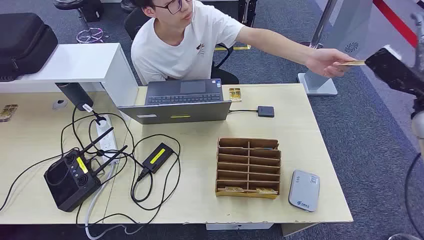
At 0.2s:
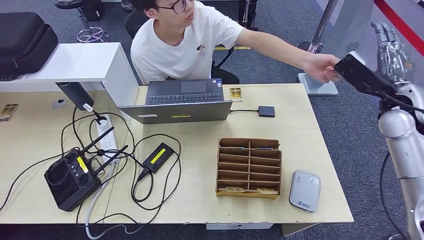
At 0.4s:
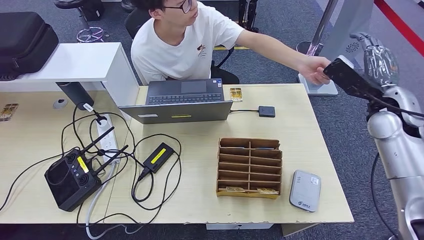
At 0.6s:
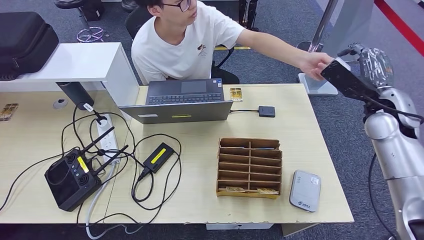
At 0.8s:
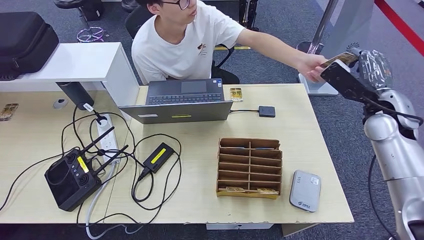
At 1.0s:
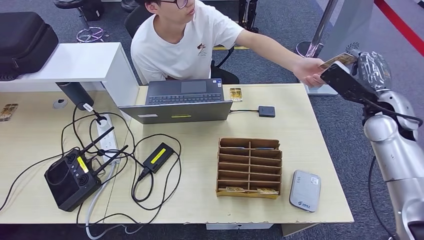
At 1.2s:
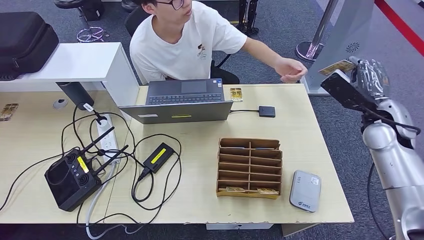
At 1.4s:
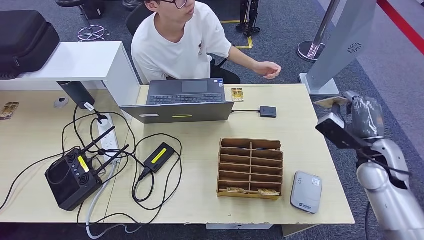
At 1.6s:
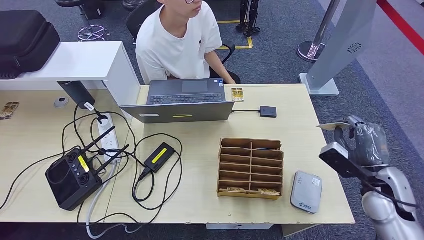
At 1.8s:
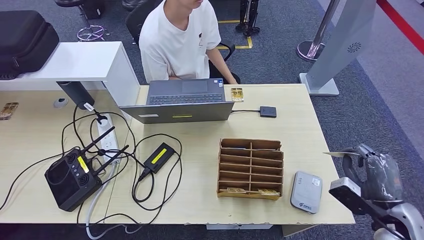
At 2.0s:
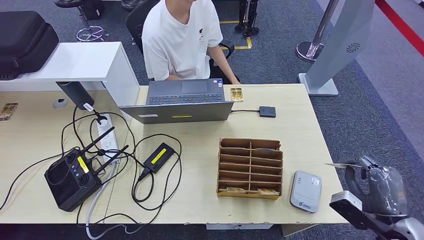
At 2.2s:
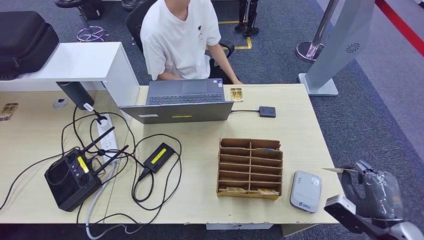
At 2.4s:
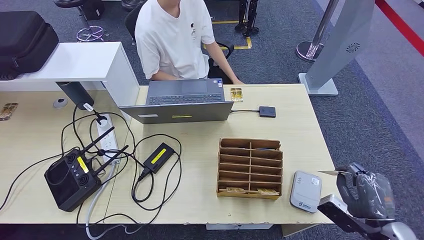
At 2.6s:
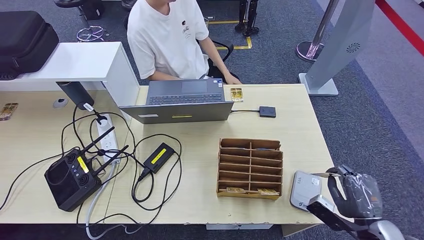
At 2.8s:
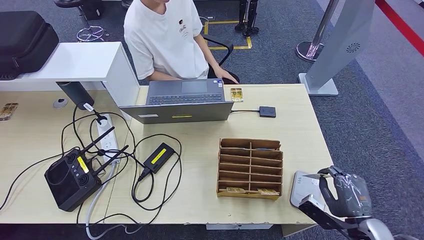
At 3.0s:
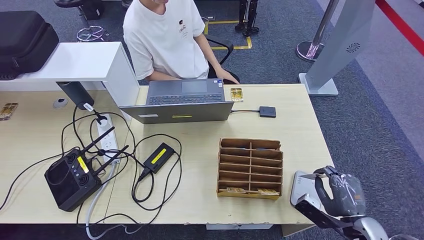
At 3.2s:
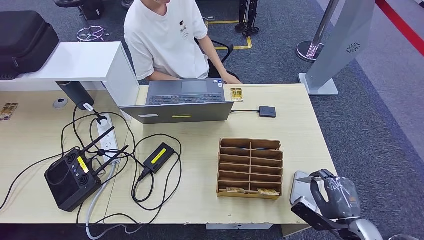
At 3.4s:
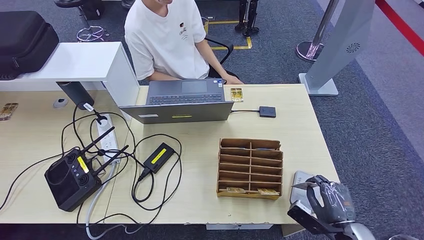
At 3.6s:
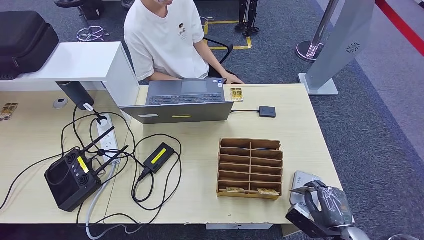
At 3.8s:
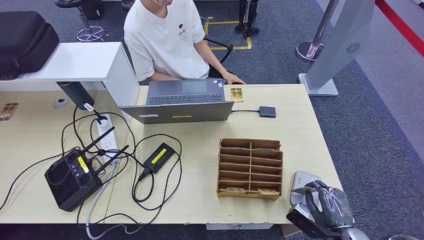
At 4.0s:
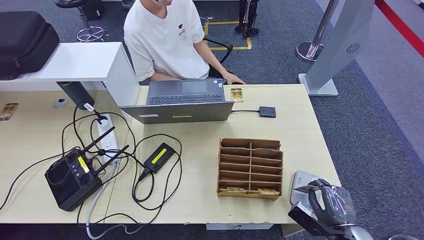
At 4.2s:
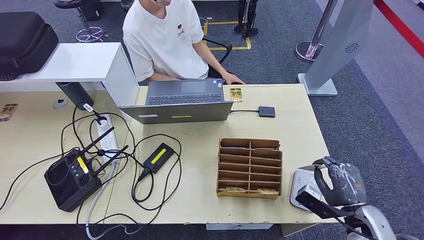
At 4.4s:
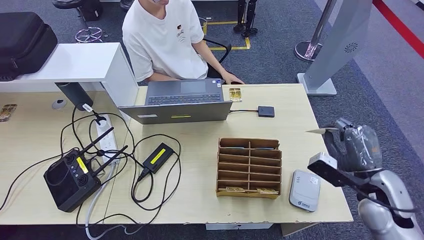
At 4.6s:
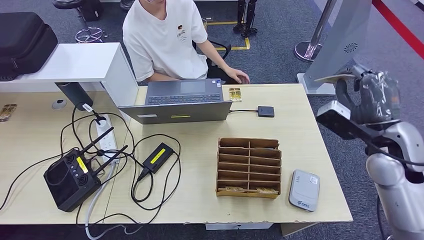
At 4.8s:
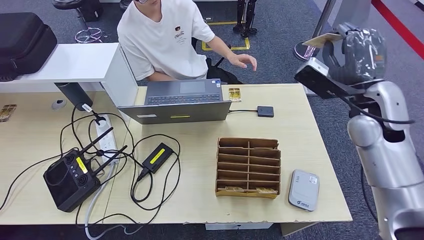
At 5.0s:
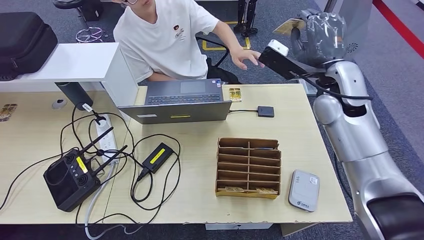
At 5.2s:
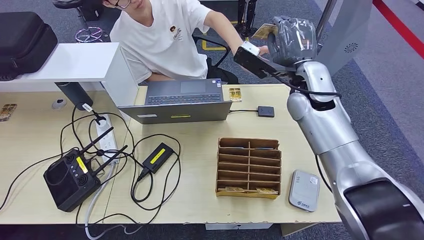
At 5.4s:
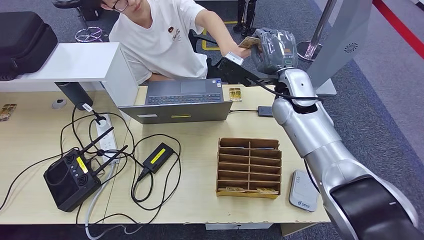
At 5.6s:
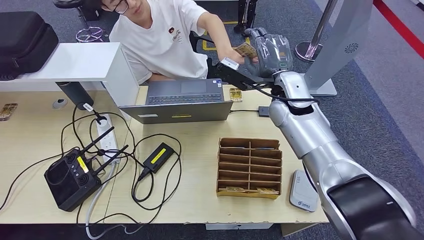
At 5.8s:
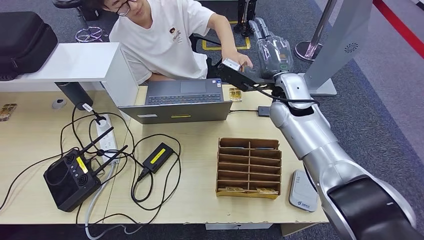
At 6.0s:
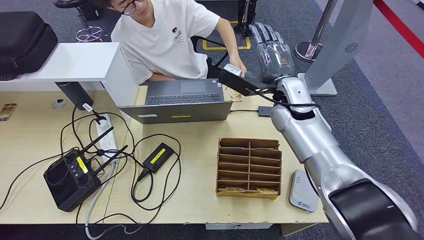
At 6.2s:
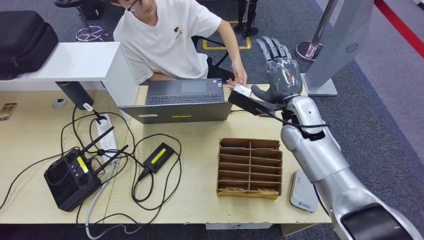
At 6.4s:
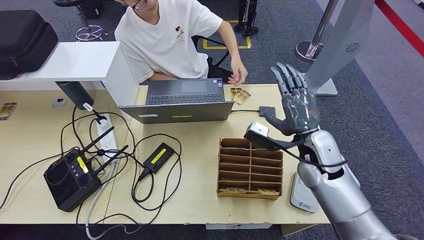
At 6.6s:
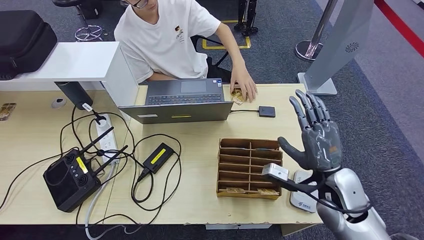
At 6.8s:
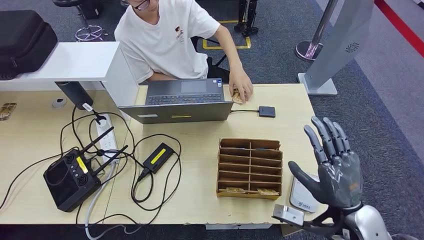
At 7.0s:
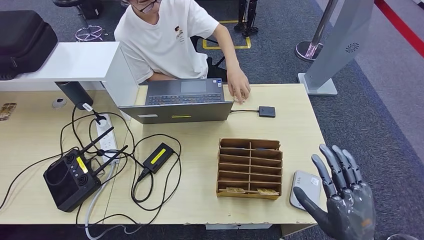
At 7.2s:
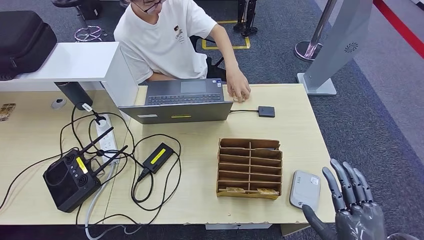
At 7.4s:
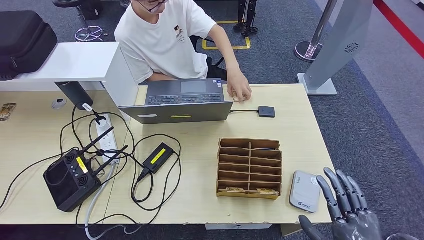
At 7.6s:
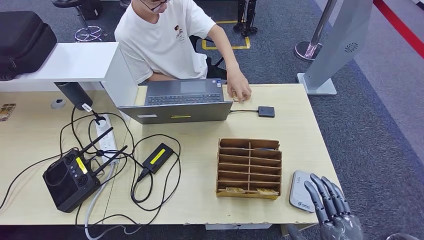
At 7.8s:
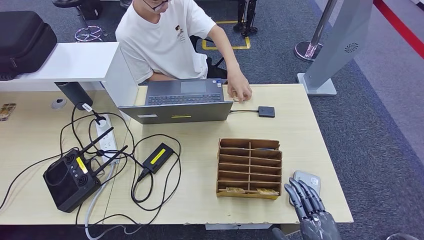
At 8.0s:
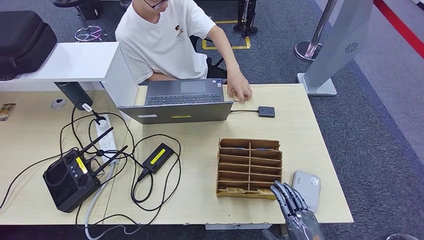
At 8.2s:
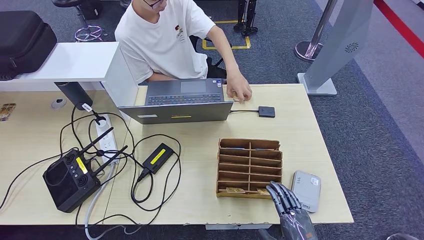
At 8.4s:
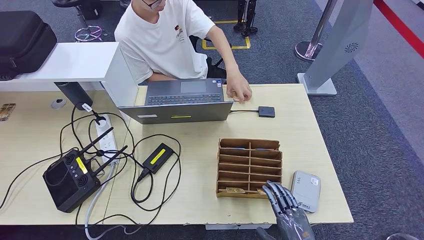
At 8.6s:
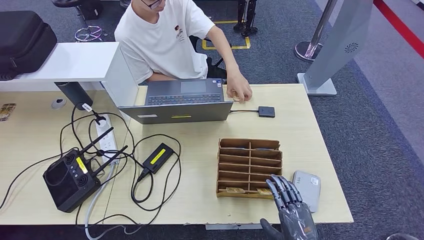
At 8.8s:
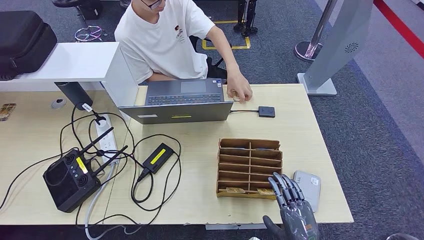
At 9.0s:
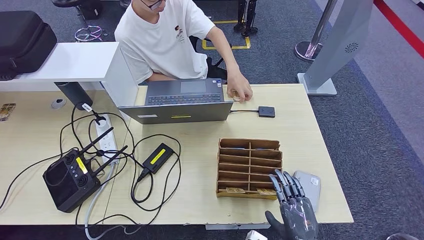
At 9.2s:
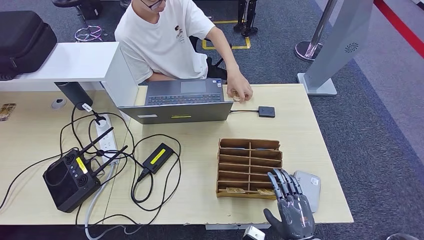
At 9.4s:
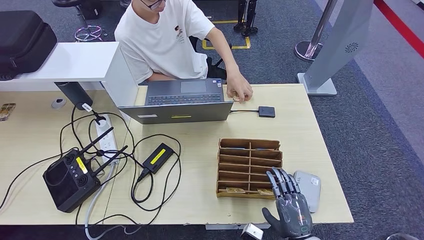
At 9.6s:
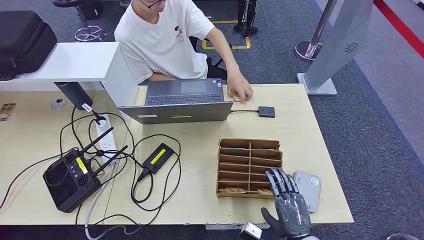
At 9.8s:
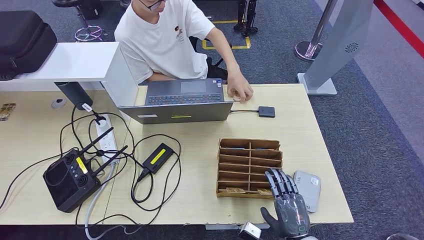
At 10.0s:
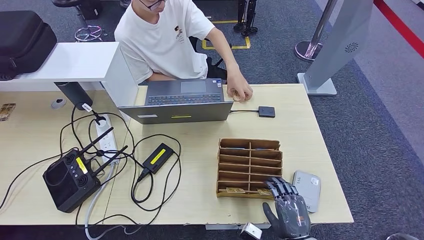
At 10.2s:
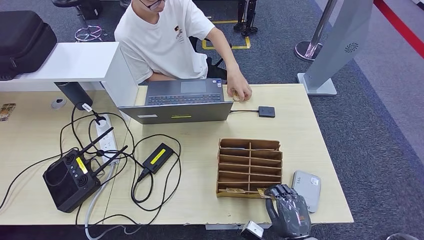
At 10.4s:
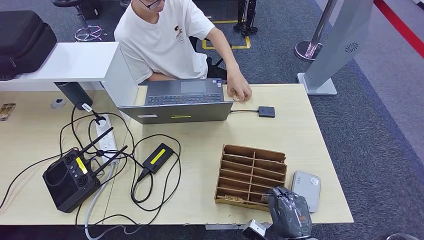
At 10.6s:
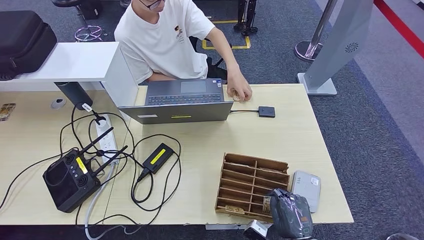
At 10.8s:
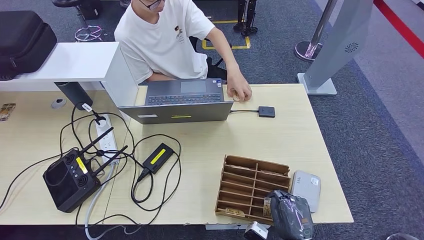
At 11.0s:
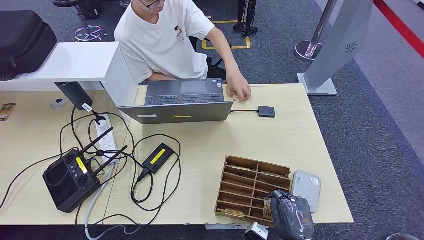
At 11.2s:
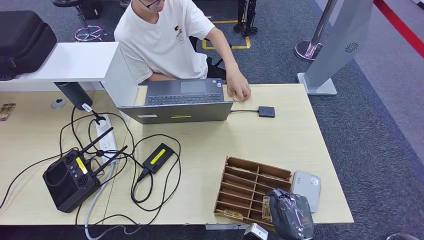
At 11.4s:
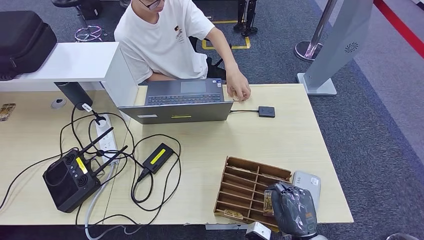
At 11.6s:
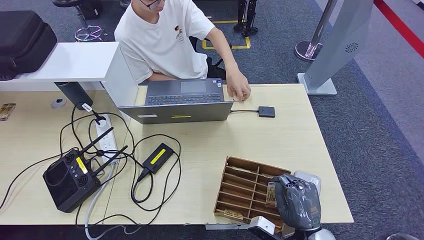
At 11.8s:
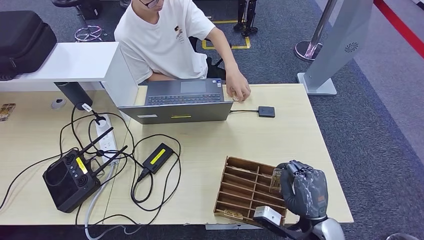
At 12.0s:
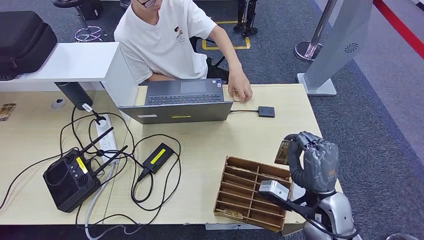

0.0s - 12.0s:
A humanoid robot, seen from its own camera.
Step, 0.0s - 1.2s: Take the ID card from the person's hand.
Step, 1.4s - 3.2s: Place the ID card on the card reader.
Step, 3.4s - 10.4s: Hand the ID card to the person.
1.6s - 3.0s: The right hand shifts about 15 cm backward and downward.
3.0s - 4.4s: The right hand is displaced upward and forward by roughly 15 cm.
4.4s - 6.0s: The right hand travels to the left, forward and upward by some 30 cm.
6.0s - 7.6s: The right hand moves backward, about 40 cm.
7.6s - 9.0s: The right hand shifts roughly 10 cm downward and forward.
9.0s - 10.4s: The hands stay close to where they were, moving slightly.
10.4s - 12.0s: The right hand travels upward and forward by some 15 cm.

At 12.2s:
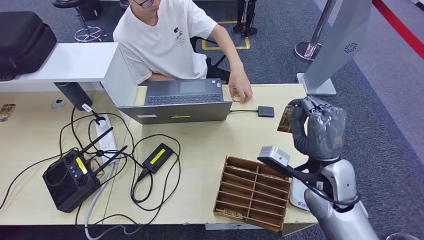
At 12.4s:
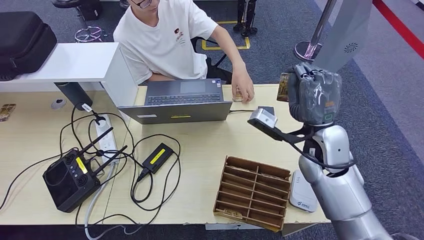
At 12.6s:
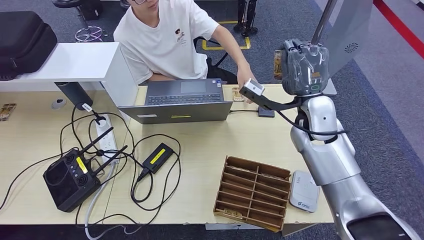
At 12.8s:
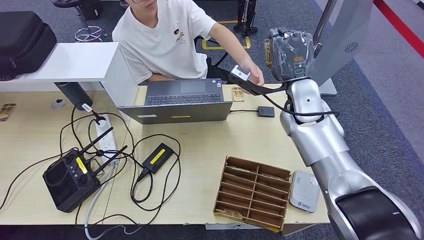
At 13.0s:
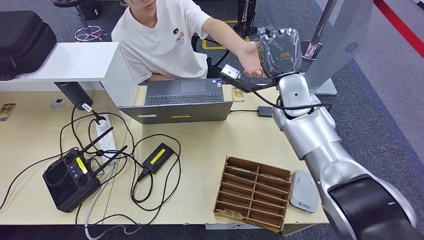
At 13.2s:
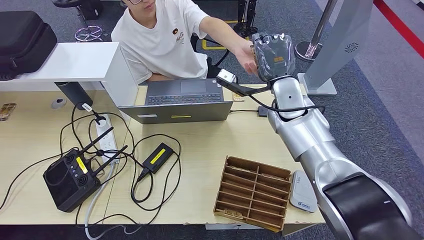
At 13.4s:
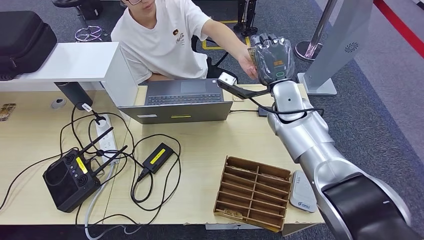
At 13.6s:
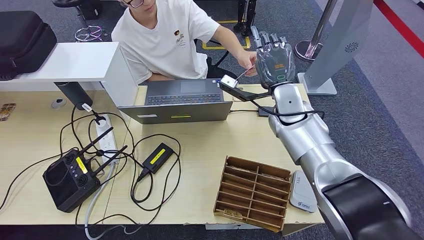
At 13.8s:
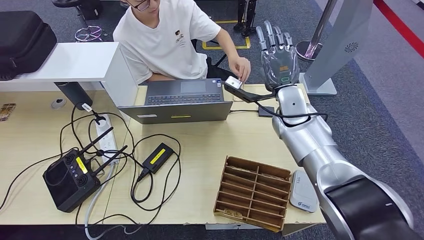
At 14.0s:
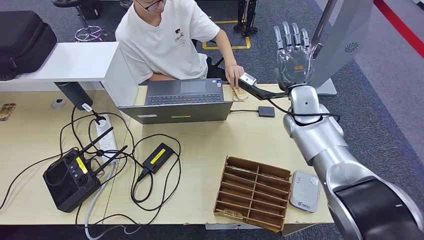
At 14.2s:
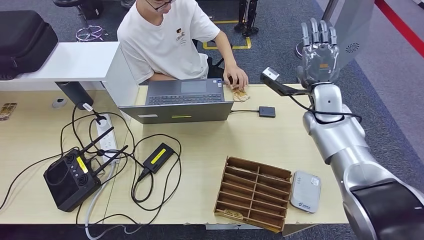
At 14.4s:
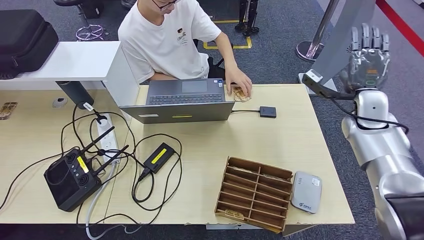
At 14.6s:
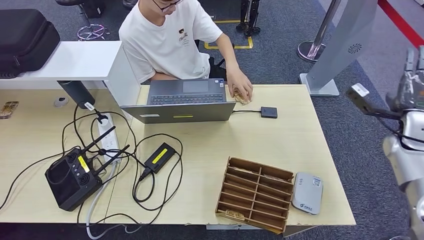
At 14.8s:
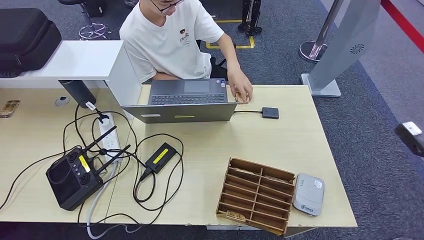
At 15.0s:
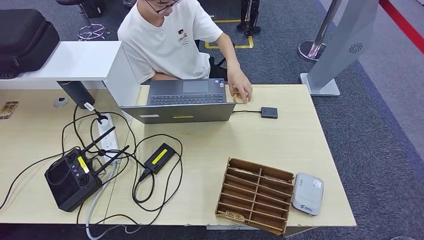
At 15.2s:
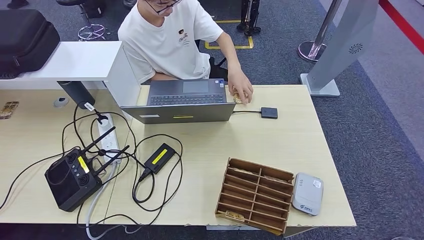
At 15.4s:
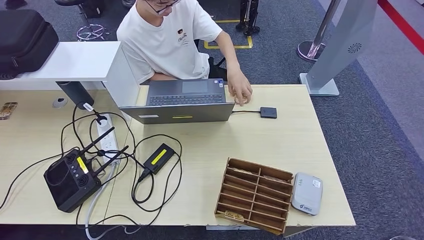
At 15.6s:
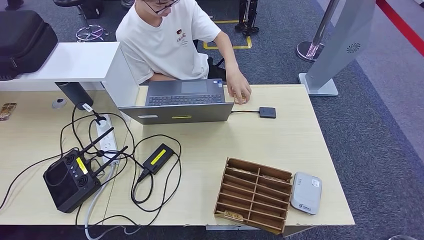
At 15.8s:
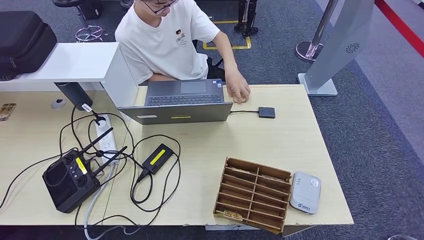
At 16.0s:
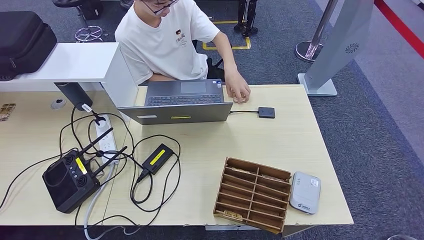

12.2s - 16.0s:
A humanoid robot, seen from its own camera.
Step, 12.2s - 16.0s: Hand the room key to the person.
12.2s - 13.4s: The right hand moves forward, some 15 cm.
14.8s - 16.0s: The right hand moves backward, downward and to the left, approximately 40 cm.

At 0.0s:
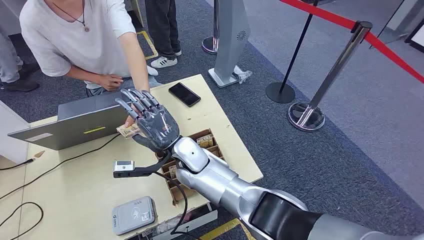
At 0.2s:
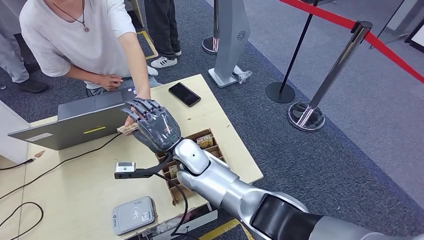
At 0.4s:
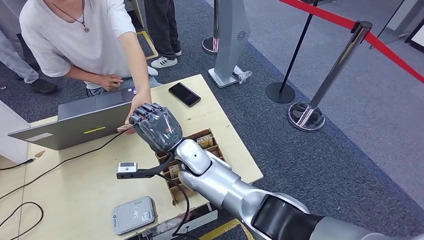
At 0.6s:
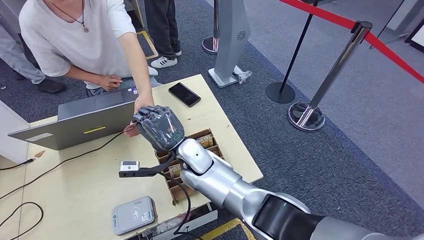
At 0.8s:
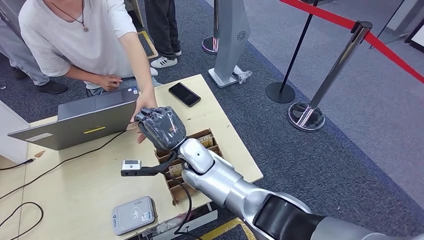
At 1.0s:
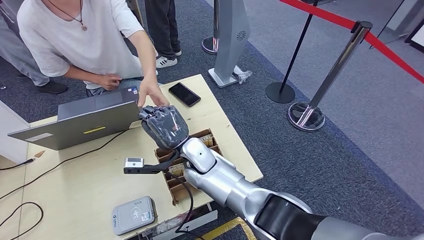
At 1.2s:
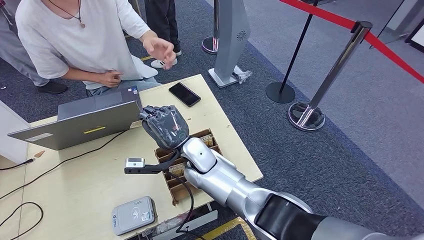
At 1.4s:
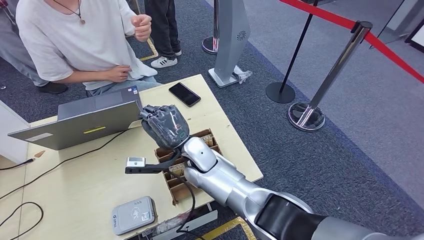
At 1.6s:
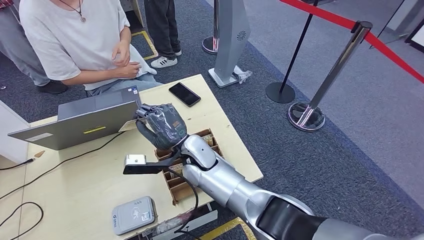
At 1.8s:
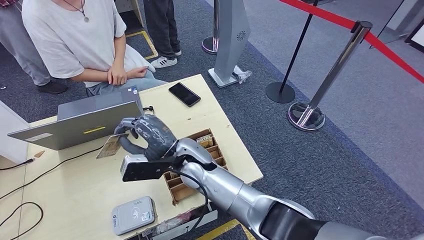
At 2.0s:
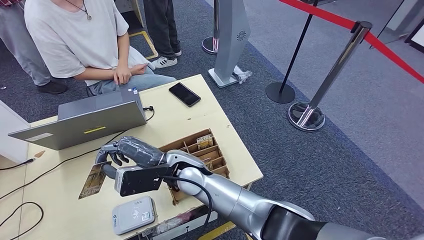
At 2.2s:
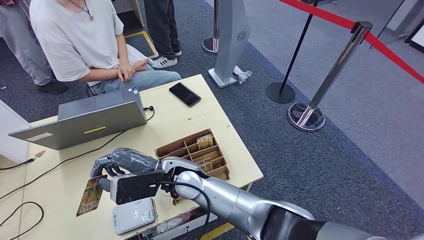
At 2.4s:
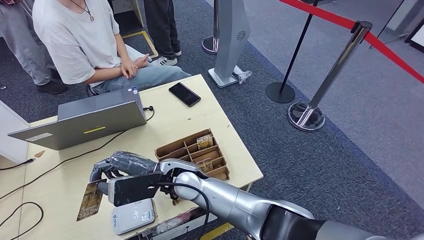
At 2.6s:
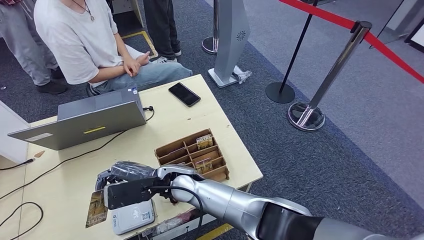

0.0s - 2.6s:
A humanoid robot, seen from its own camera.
Step, 0.0s - 1.4s: Take the ID card from the person's hand.
